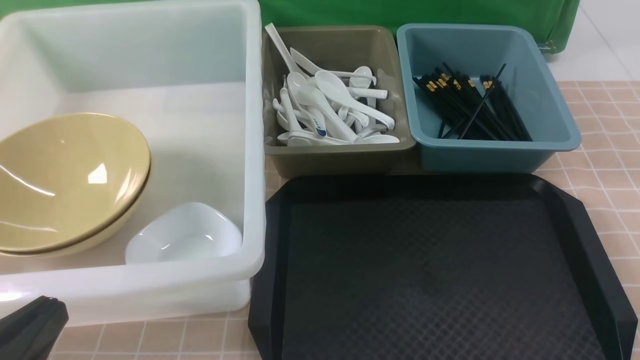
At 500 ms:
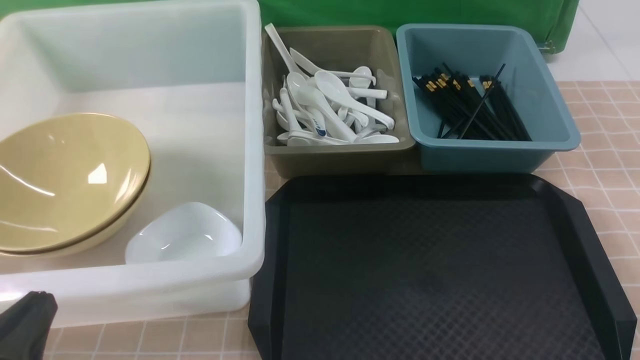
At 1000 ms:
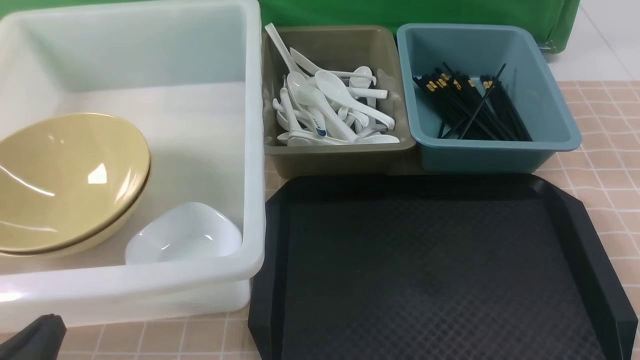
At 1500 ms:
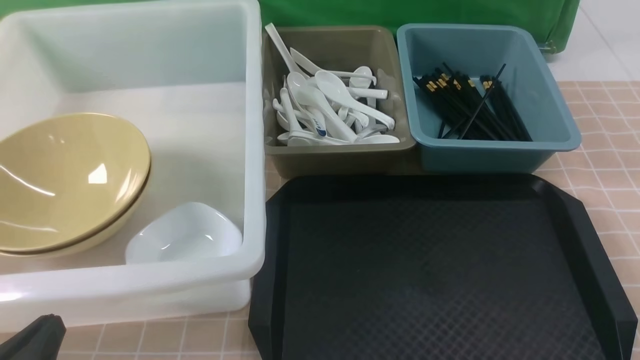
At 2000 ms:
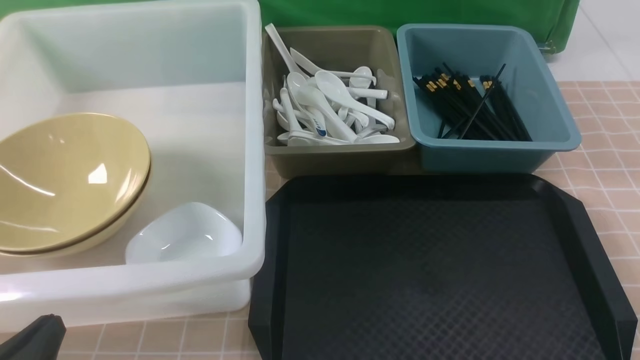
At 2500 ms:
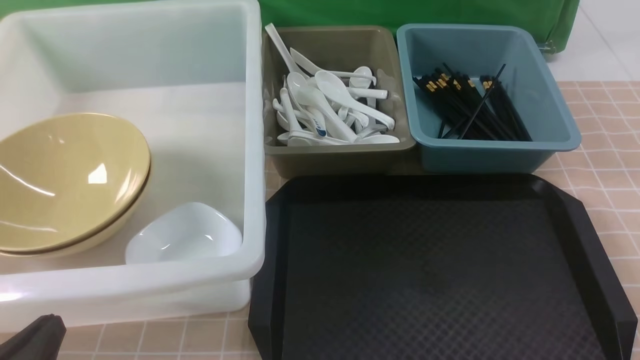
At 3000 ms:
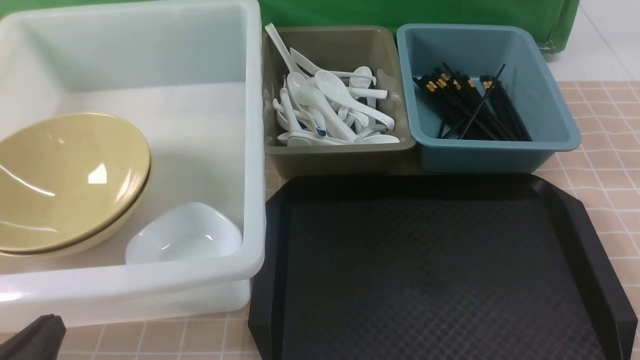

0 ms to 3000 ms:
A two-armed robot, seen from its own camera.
Task of the whole recording: on brown table put chopsticks spoon bowls plates into blue grey white boxes.
0 ms to 1500 ms: The left gripper travels downward by roughly 5 cm.
1500 ms to 3000 ms: Both grippers stay about where they are.

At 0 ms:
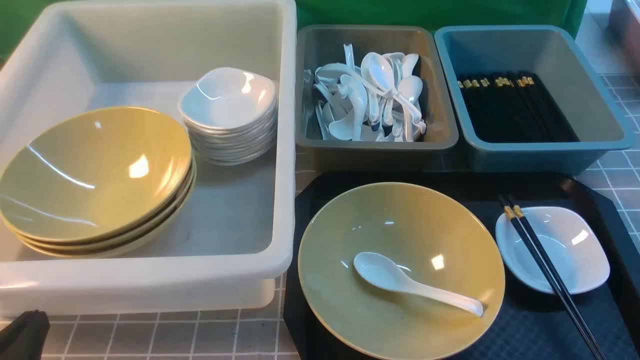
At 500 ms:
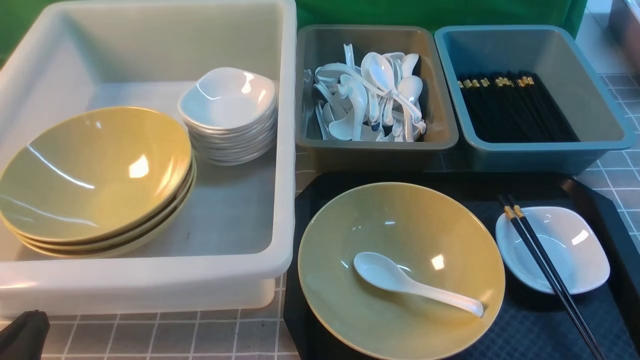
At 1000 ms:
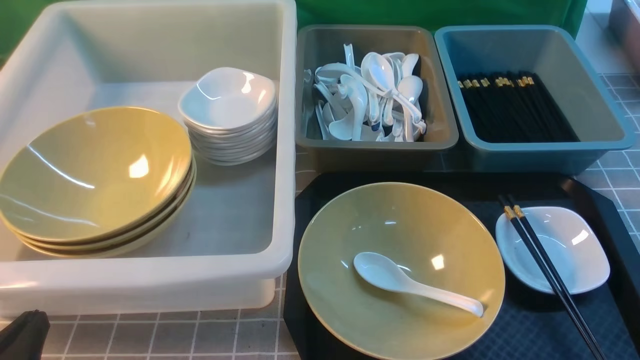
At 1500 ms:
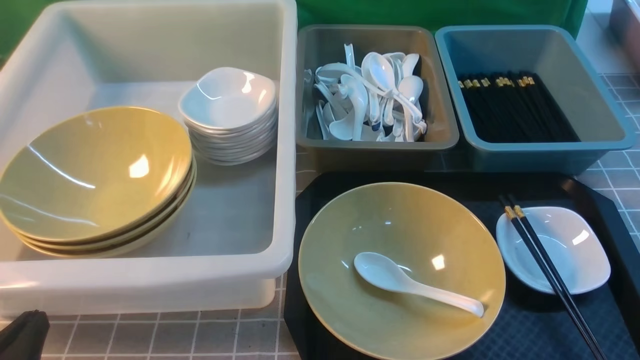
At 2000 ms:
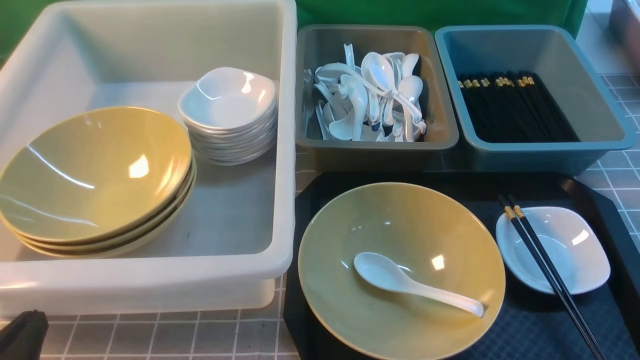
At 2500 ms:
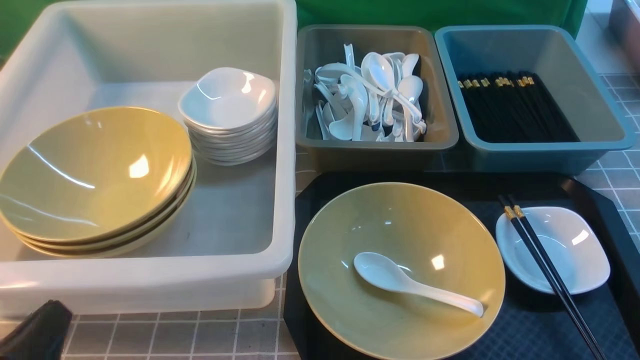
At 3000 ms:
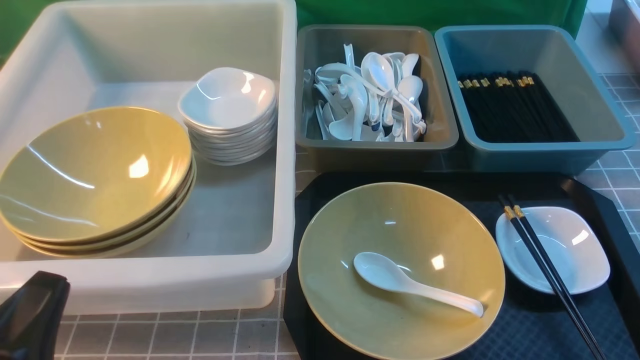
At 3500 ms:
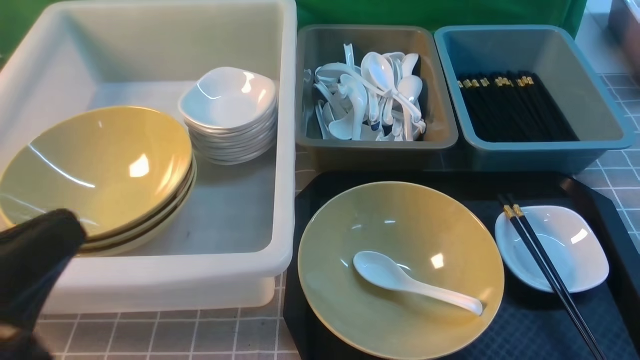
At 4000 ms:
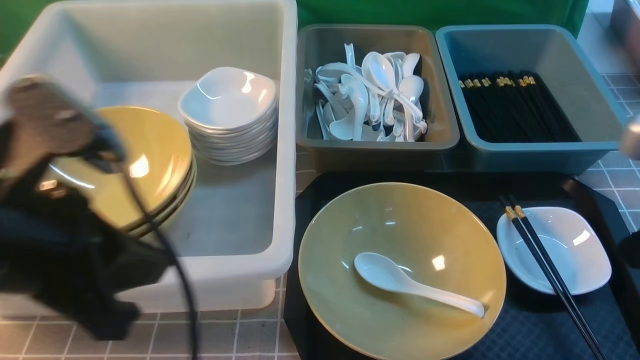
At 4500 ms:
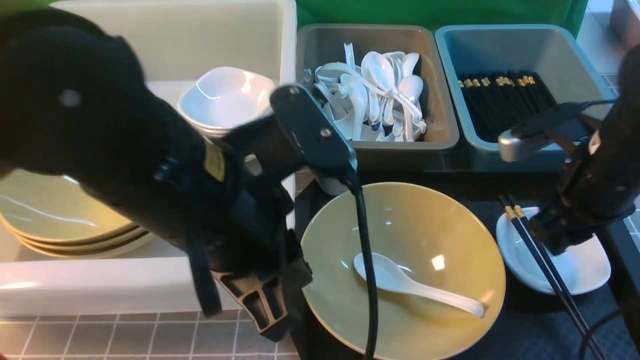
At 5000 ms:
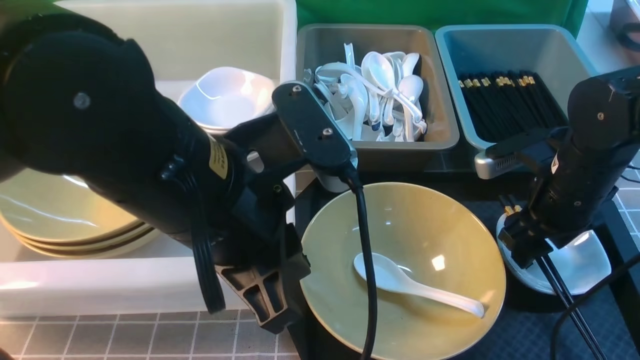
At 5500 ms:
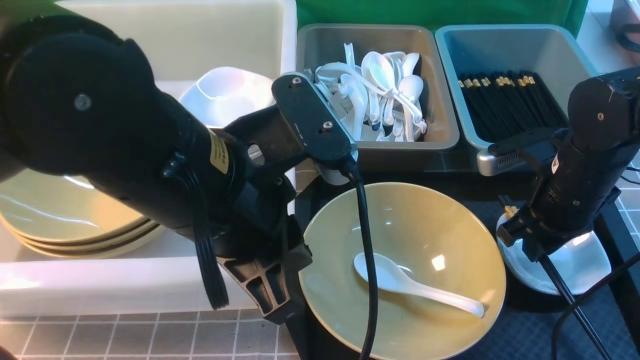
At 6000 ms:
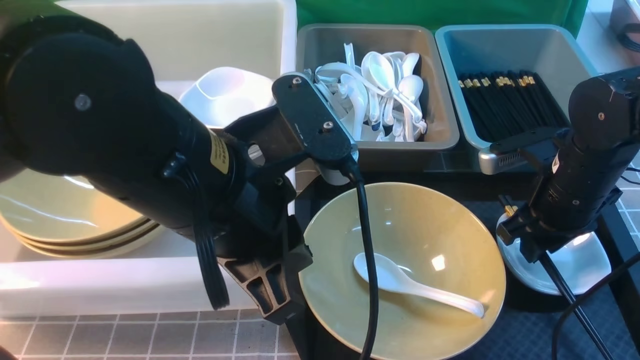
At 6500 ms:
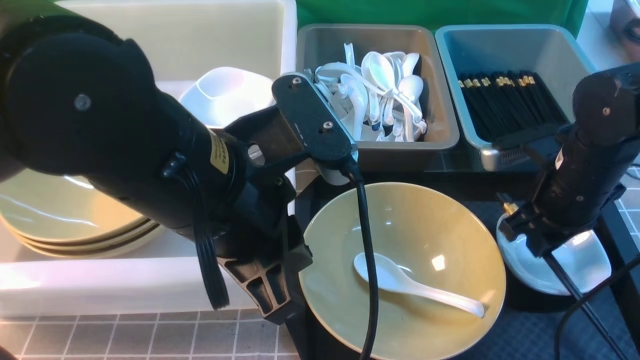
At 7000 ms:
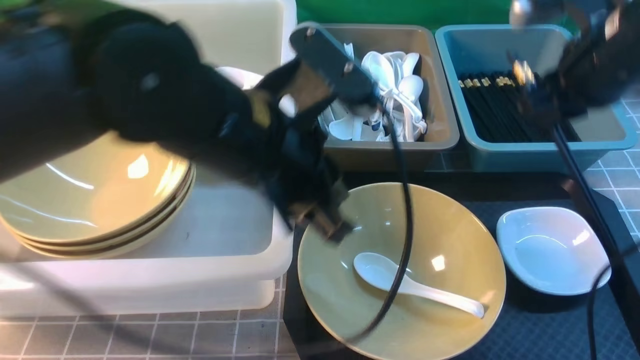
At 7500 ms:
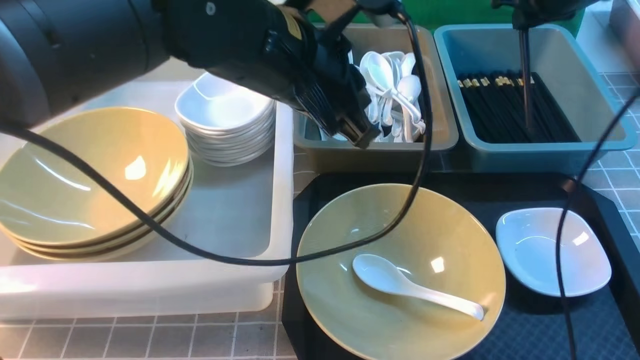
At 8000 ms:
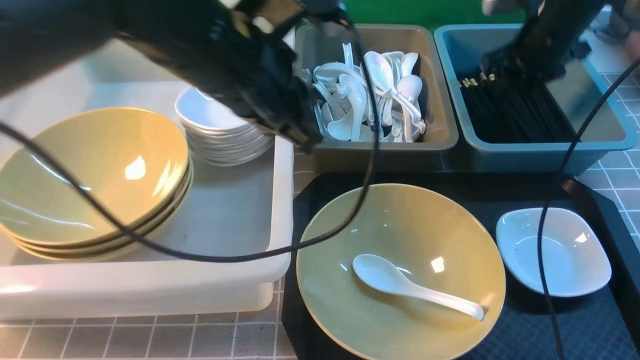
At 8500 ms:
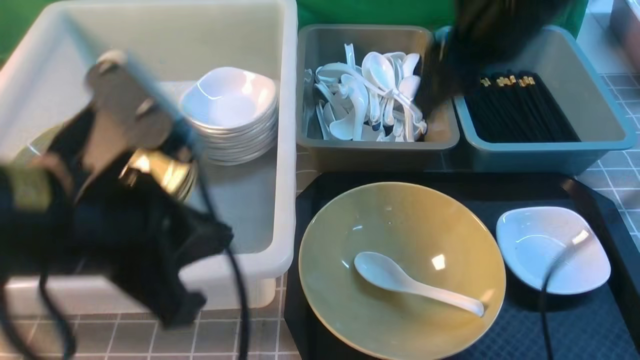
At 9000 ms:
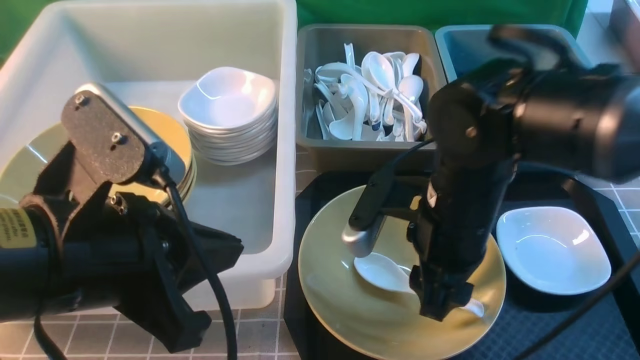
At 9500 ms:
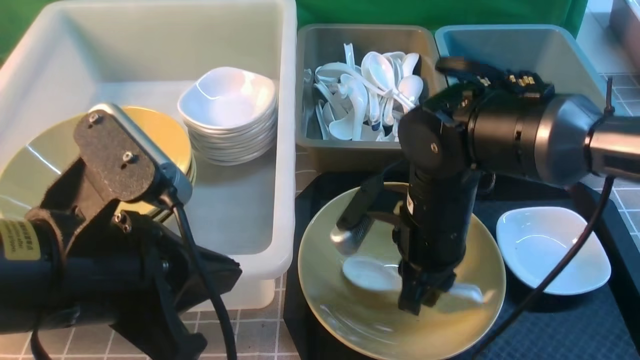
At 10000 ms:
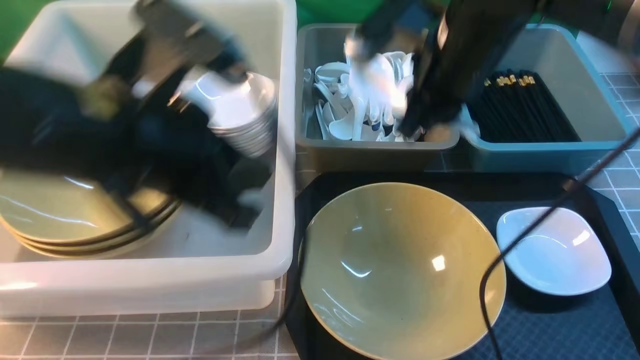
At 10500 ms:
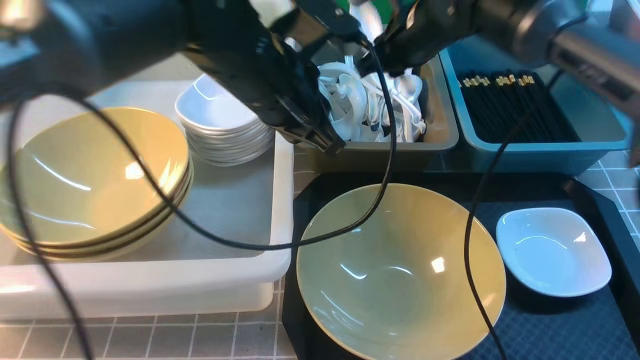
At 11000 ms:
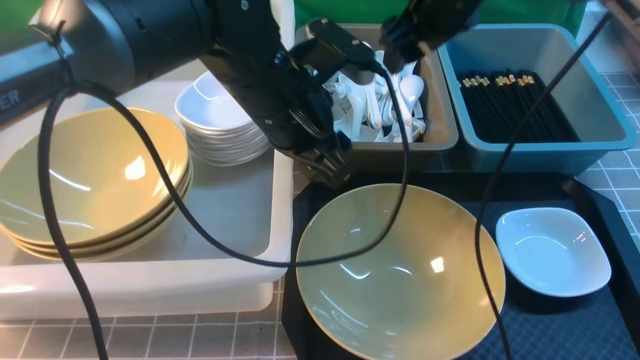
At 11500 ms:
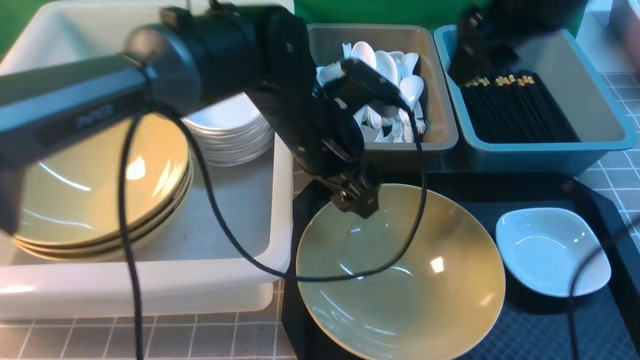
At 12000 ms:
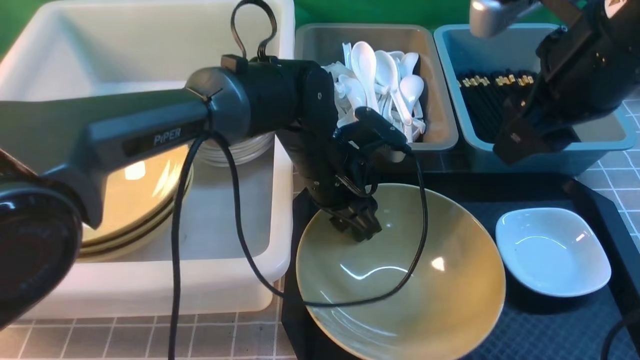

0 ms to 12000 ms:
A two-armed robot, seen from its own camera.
Task of the whole recording: on grey table put chopsticks spoon bowls plates into blue grey white boxes.
Step, 0 ms to 6500 ms: use the right arm to grab the chopsticks.
Step, 7000 ms to 8000 ms: use the right arm to put the chopsticks into the small storage box on the right.
Step, 8500 ms to 9500 ms: use the right arm to grab the soup spoon in the middle.
Step, 10000 ms to 10500 ms: use the right arm to put the soup spoon into the small storage box in the middle.
2000 ms to 4000 ms: The right gripper goes some 25 cm forward and upward. The left gripper travels upward, to the right and forward by some 25 cm.
4000 ms to 6000 ms: The right gripper shifts some 15 cm downward and forward, and opens, then closes again, while the left gripper travels to the right by approximately 5 cm.
6000 ms to 8000 ms: The left gripper moves forward, roughly 10 cm, while the right gripper goes some 20 cm forward and upward.
8000 ms to 10000 ms: The left gripper is displaced backward and to the left by roughly 10 cm; the right gripper moves to the left and backward, some 25 cm.
10000 ms to 12000 ms: The left gripper heads forward, downward and to the right, covering about 25 cm, and opens its fingers; the right gripper is displaced to the right, upward and backward by approximately 15 cm, and opens its fingers.

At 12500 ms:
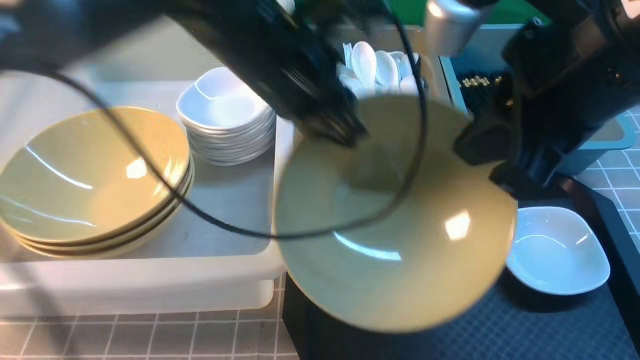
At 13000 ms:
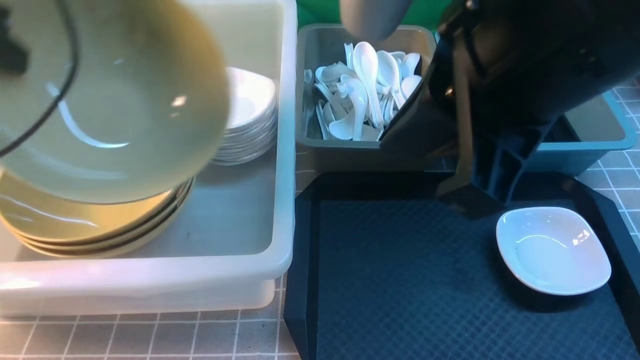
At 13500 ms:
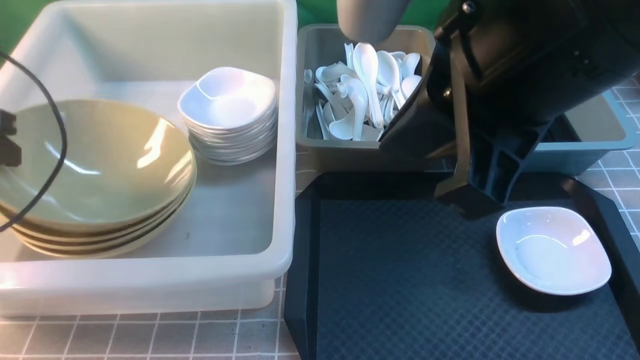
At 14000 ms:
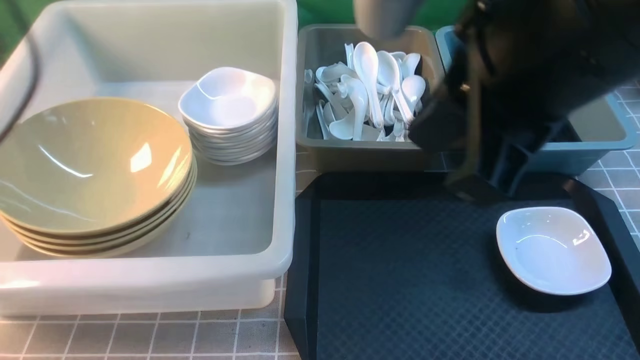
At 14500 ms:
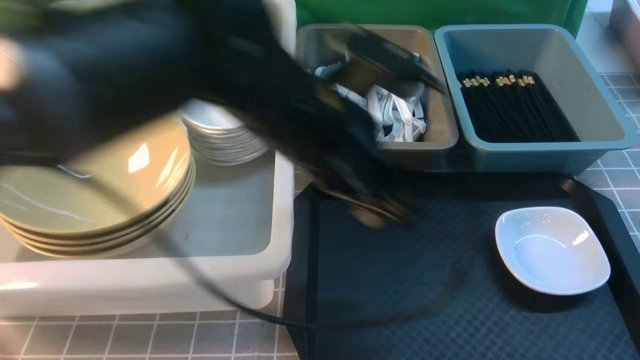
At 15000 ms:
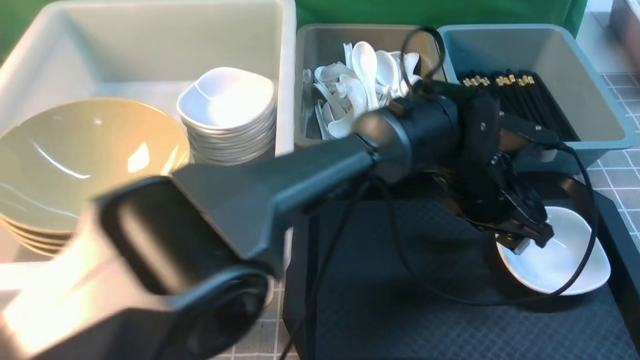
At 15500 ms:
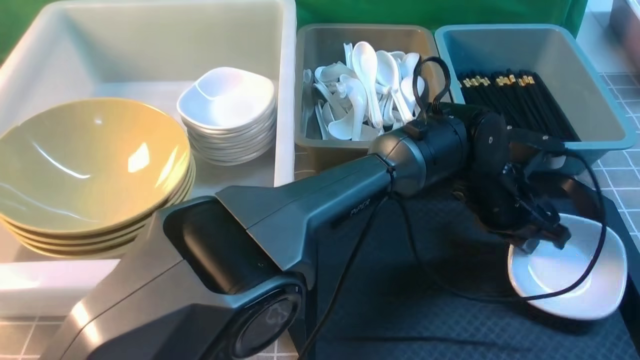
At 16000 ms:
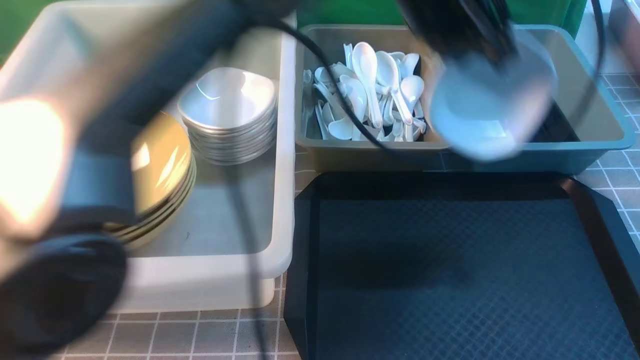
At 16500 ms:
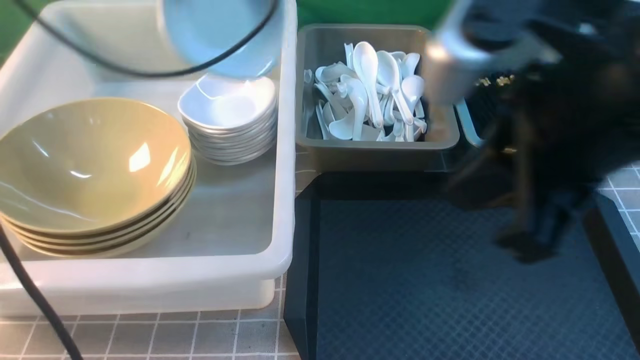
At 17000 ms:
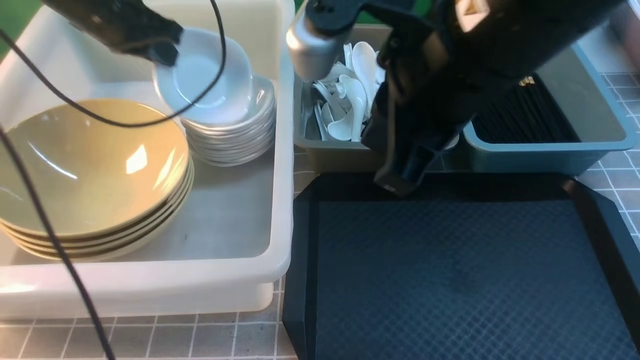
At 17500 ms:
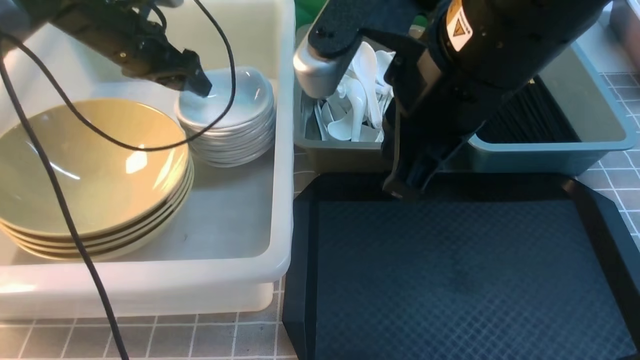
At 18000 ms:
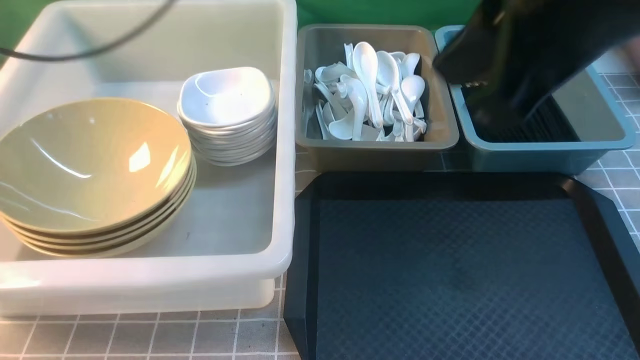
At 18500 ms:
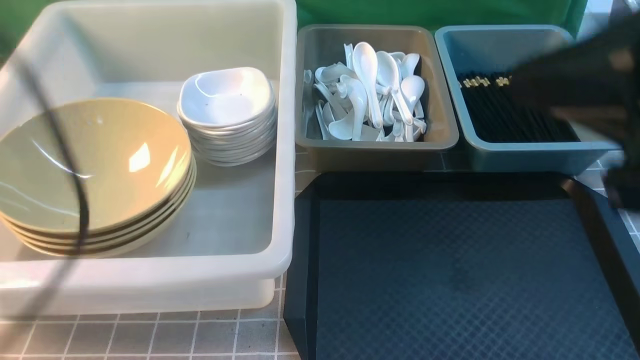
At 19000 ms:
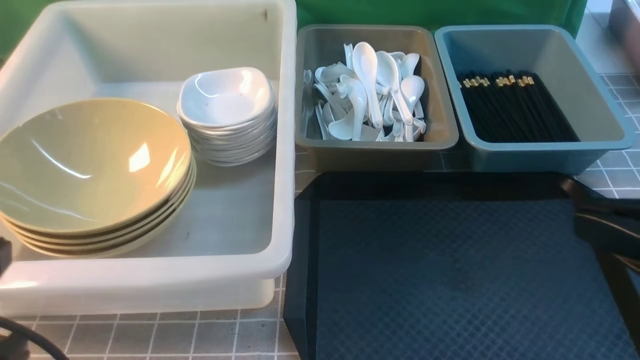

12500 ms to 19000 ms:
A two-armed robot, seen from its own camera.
Task of the whole recording: on grey table put chopsticks spoon bowls plates into blue grey white boxes.
Step, 13000 ms to 14000 ms: use the left arm to put the noodle bowl into the large storage box on the left.
Step, 14500 ms to 15500 ms: use the left arm to grab the plate.
Step, 16000 ms to 17500 ms: use the left arm to put the plate into the large storage box on the left.
12500 ms to 14500 ms: The left gripper is displaced backward by about 5 cm, moves some 30 cm to the left and comes back, and opens. Meanwhile the right gripper travels to the right and backward by some 10 cm.
14500 ms to 17000 ms: The left gripper is displaced to the left and forward by approximately 25 cm, and closes up. The right gripper shifts about 15 cm to the left and forward.
17000 ms to 19000 ms: The right gripper moves to the right and backward, approximately 20 cm. Meanwhile the left gripper is displaced backward by some 35 cm, and opens, then closes once more.
